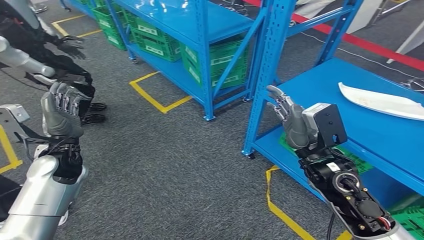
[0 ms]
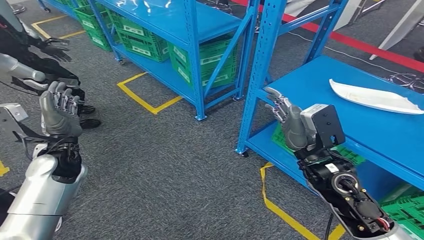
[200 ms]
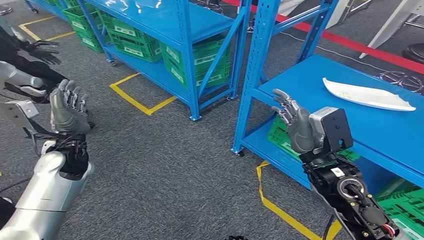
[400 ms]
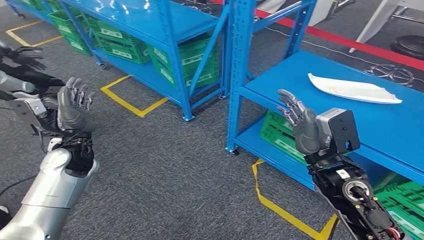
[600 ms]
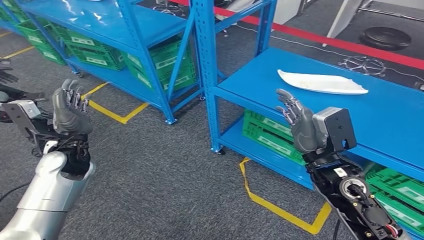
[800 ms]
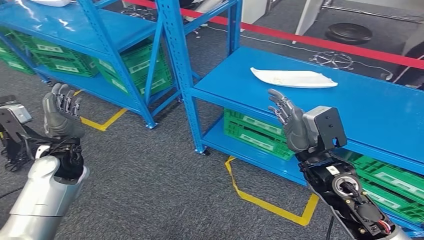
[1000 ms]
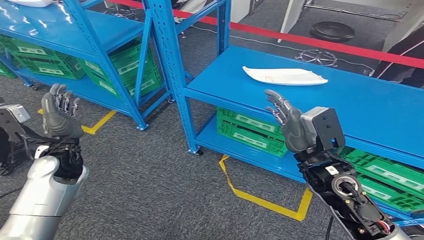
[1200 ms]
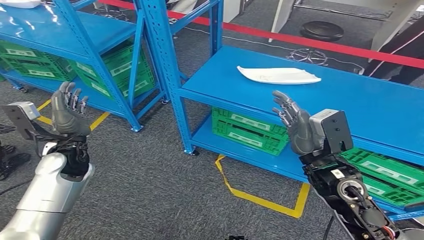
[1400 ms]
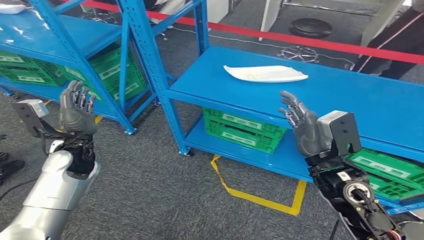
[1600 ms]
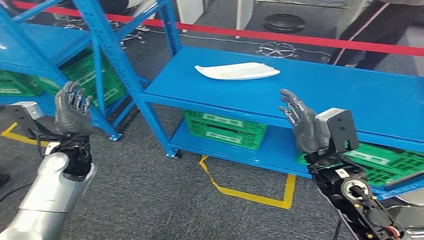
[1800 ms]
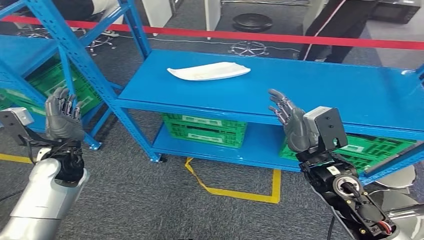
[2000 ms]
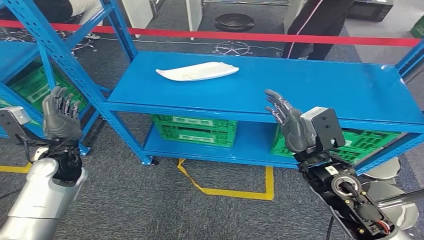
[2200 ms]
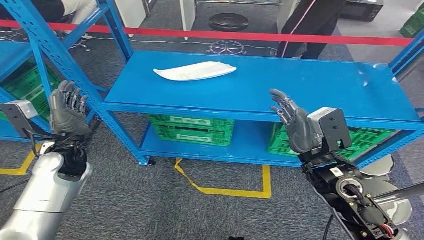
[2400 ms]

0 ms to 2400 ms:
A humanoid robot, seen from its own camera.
Step, 0 ms to 2400 ms: Return to the initial position at the workbench.
